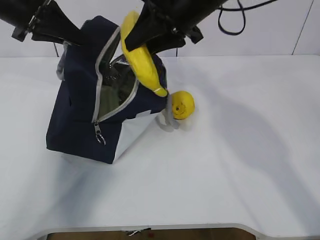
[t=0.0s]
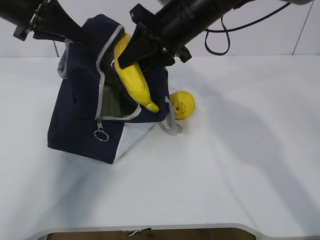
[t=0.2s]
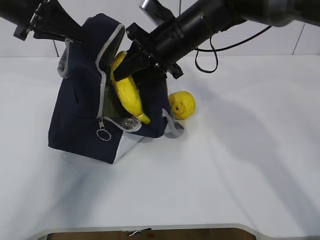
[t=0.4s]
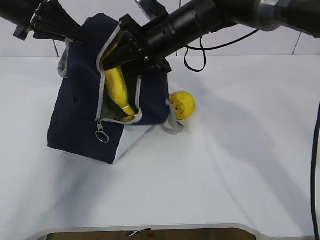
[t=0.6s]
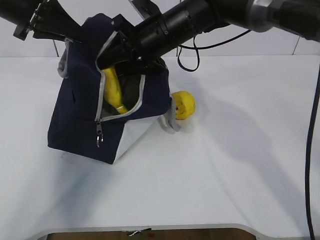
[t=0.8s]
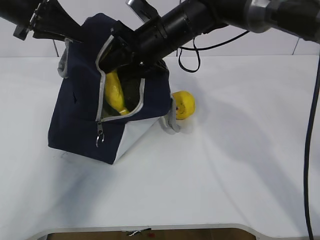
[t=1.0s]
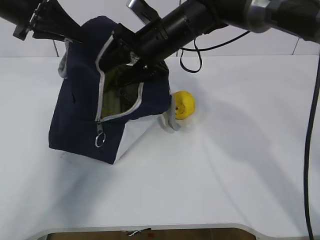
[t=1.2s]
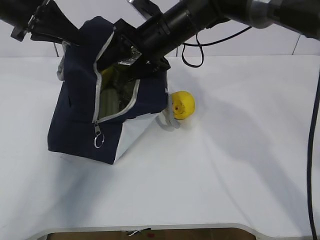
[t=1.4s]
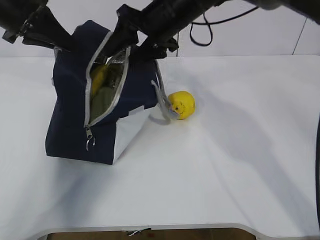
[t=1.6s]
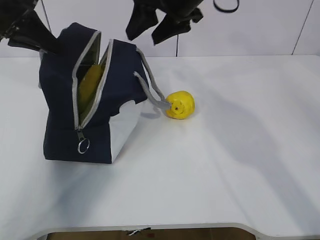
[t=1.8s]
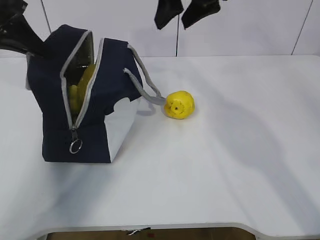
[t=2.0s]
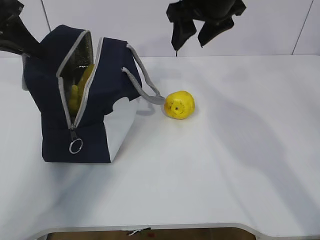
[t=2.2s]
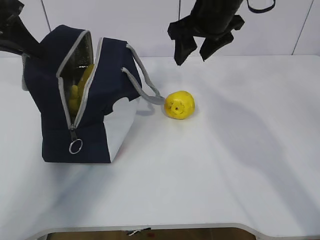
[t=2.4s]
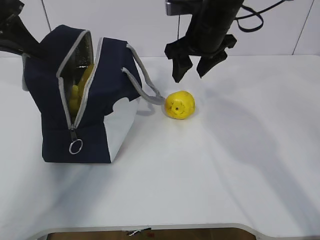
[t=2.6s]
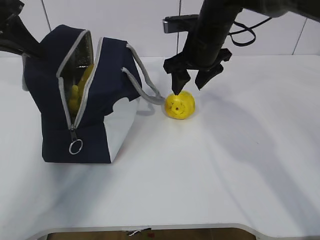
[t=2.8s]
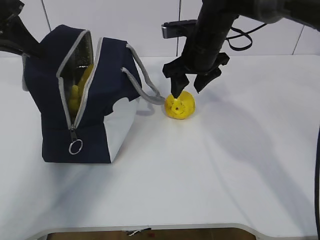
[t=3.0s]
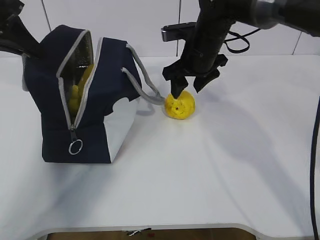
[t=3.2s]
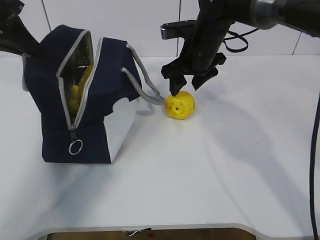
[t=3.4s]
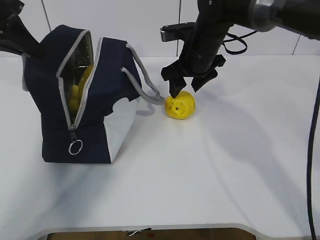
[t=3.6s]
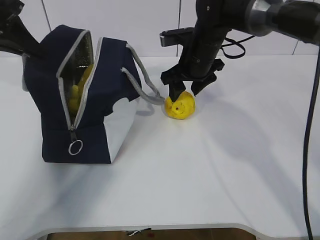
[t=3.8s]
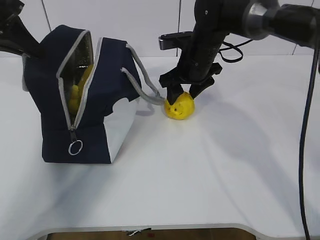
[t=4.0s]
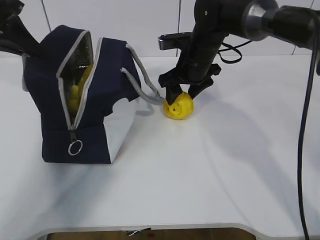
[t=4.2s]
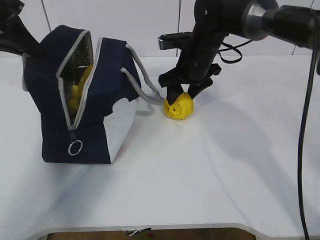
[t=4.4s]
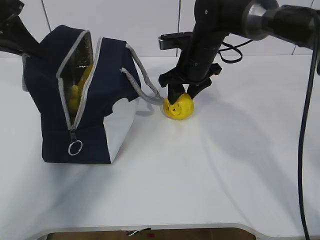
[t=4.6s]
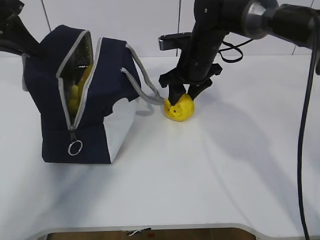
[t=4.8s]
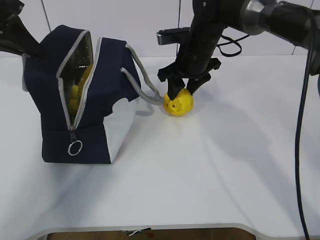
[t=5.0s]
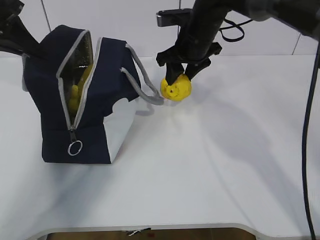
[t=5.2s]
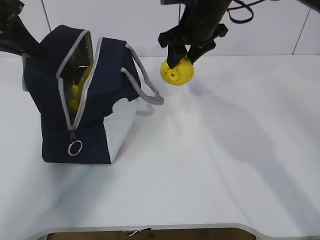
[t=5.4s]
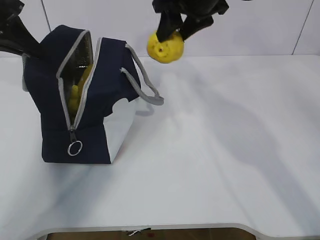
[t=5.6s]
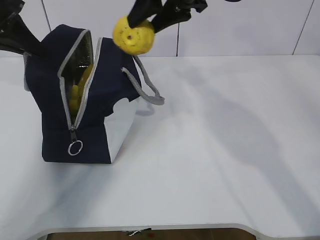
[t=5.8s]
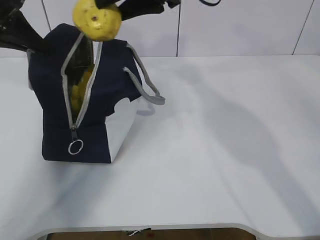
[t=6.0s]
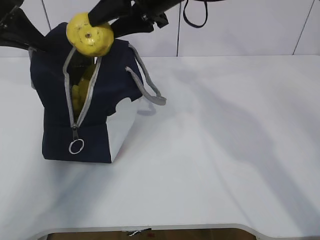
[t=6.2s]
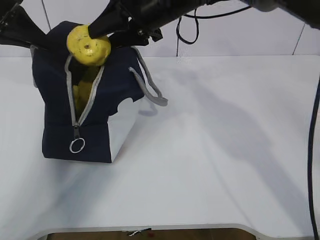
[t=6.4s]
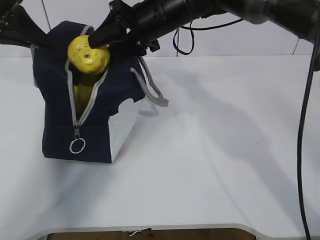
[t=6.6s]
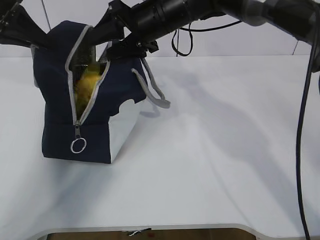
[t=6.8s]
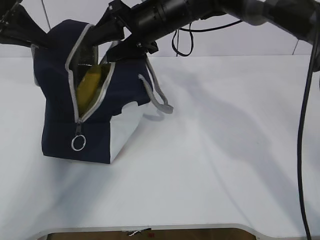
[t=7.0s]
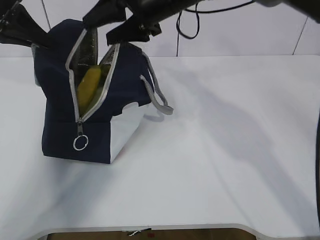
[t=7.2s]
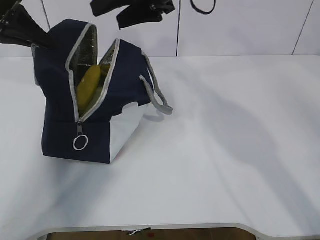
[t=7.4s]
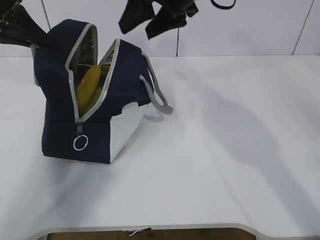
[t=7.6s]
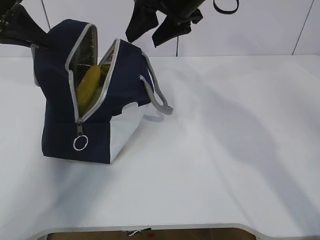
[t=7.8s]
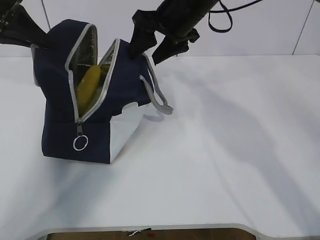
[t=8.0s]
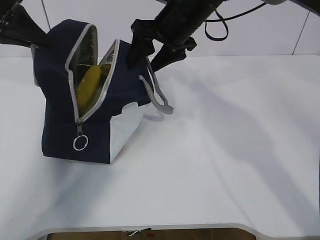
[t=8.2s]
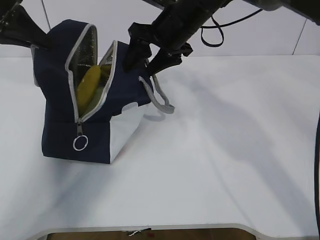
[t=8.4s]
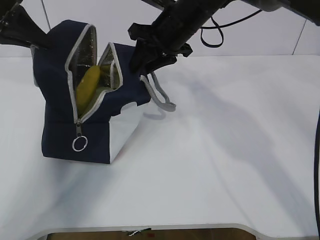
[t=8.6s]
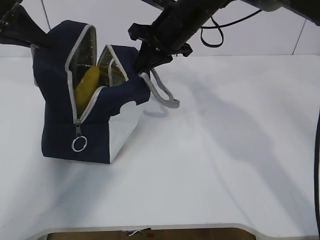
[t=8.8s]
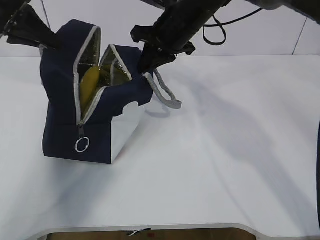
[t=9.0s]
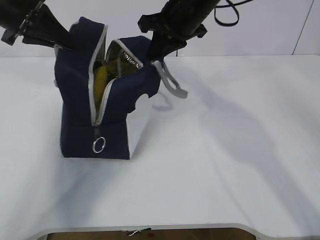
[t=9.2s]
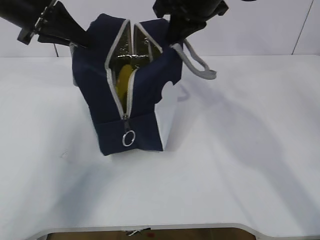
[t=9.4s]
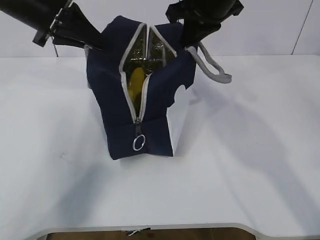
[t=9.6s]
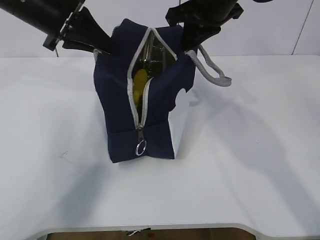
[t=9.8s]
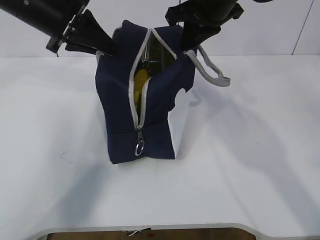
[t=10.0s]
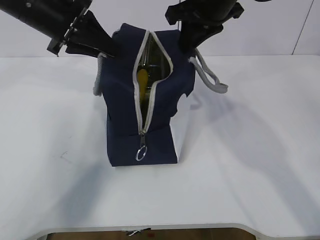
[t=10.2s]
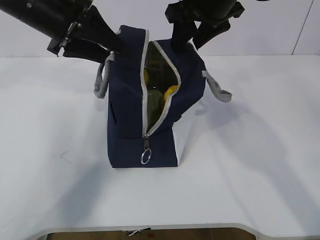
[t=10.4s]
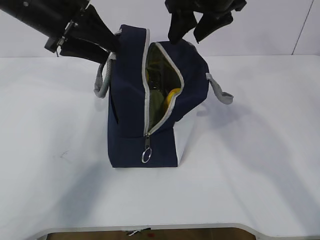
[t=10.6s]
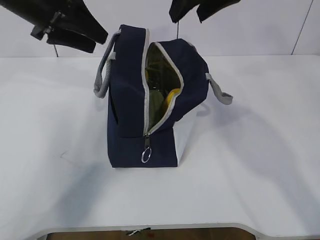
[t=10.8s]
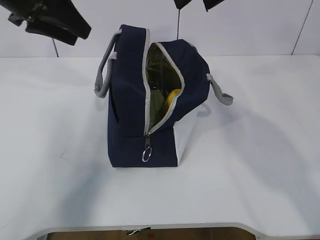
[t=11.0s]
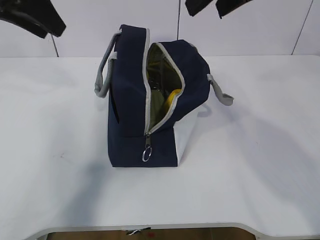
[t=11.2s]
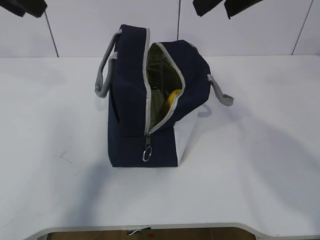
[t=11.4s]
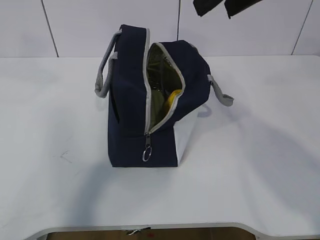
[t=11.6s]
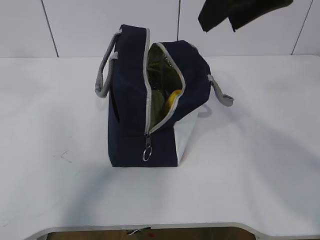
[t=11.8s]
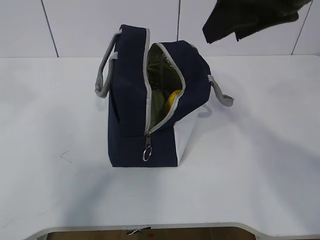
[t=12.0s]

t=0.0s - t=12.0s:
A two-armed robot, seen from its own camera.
Step, t=0.0s - t=1.8s: Place the banana into the package with the right gripper.
Step, t=2.2s - t=4.4s: Grasp the pear with the right gripper.
Step, t=4.6s - t=7.2s: Place the pear into the package with the right gripper.
t=0.0s - t=1.6s: The right gripper opens.
t=1.6s - t=3.0s: The right gripper goes about 10 cm downward and to the right.
t=3.0s - t=4.4s: The grippers stay close to where they were, moving slightly.
t=4.4s - t=6.0s: The right gripper shifts about 15 cm upward.
t=6.0s - t=7.6s: The right gripper moves approximately 10 cm downward and comes back.
t=7.6s - t=9.0s: The right gripper goes some 5 cm downward, and closes.
t=9.0s - t=10.4s: The left gripper goes approximately 10 cm to the right, and opens up. The right gripper heads upward, covering roughly 5 cm, and opens its fingers.
t=10.4s - t=12.0s: The left gripper is displaced backward, upward and to the left by approximately 25 cm. Meanwhile the right gripper travels backward by some 15 cm.

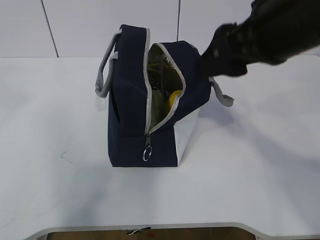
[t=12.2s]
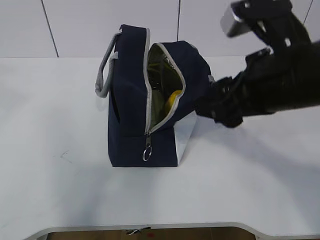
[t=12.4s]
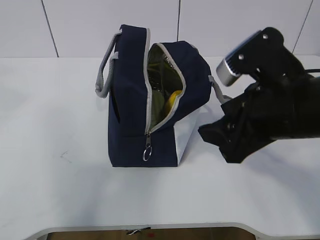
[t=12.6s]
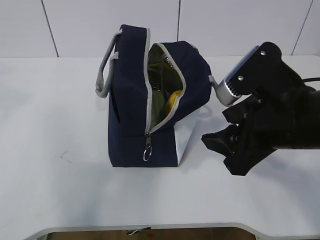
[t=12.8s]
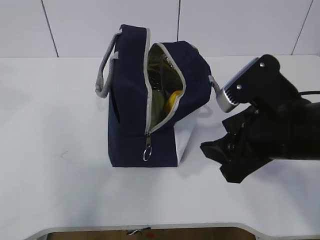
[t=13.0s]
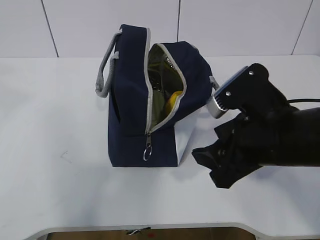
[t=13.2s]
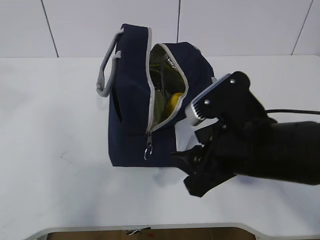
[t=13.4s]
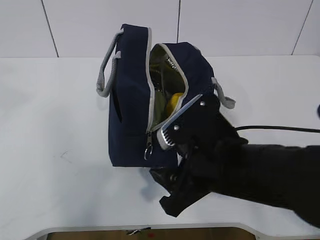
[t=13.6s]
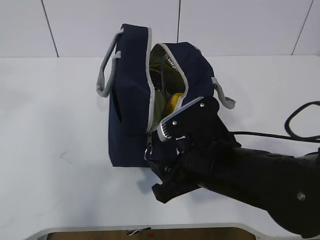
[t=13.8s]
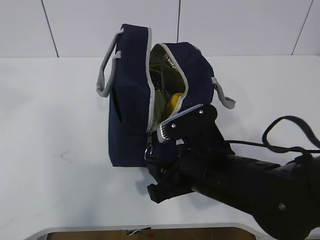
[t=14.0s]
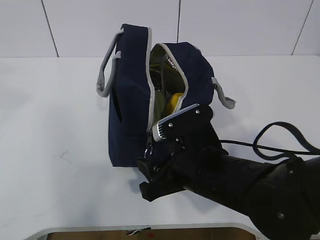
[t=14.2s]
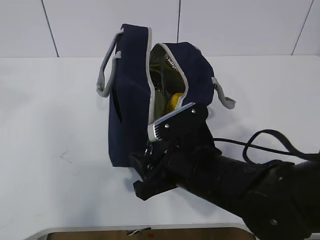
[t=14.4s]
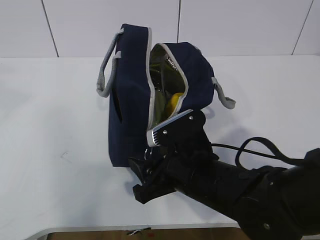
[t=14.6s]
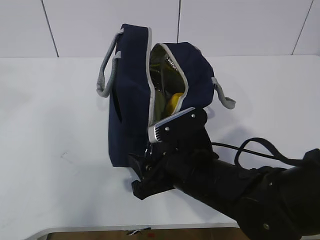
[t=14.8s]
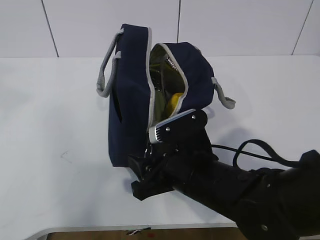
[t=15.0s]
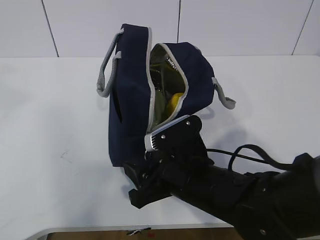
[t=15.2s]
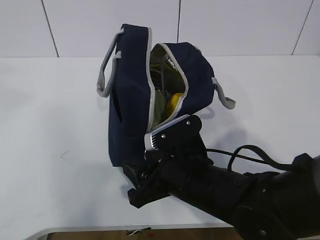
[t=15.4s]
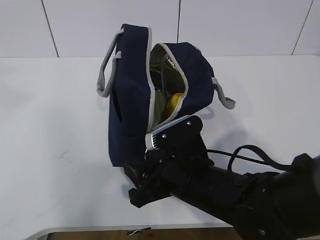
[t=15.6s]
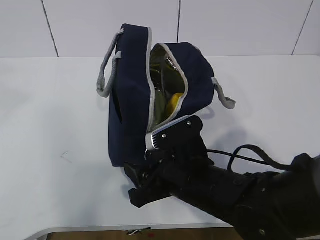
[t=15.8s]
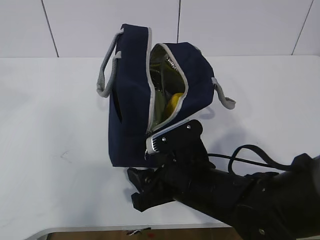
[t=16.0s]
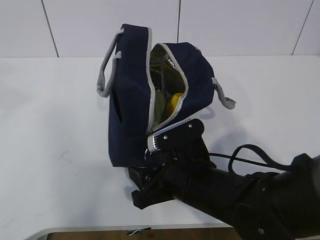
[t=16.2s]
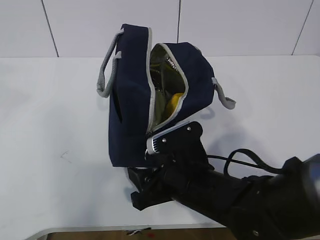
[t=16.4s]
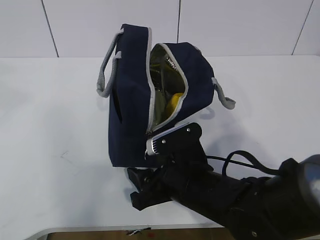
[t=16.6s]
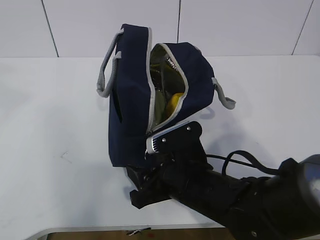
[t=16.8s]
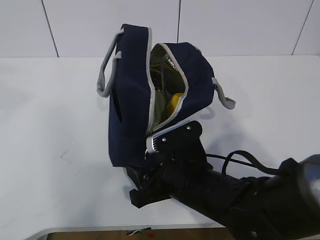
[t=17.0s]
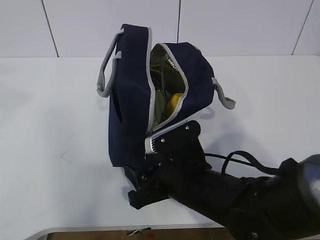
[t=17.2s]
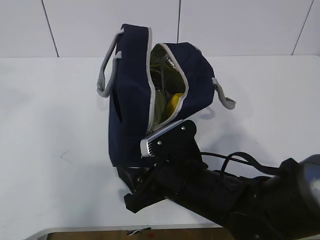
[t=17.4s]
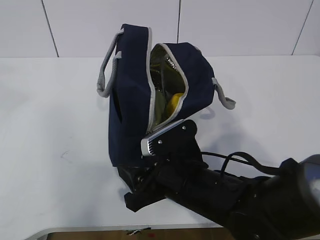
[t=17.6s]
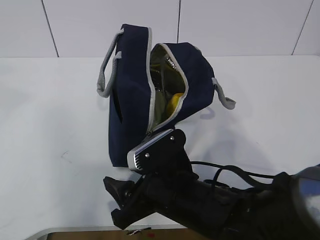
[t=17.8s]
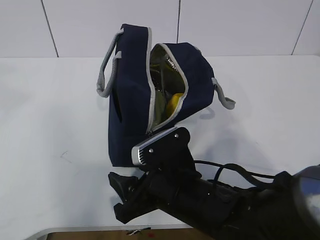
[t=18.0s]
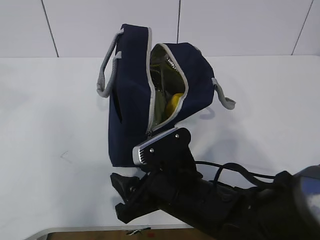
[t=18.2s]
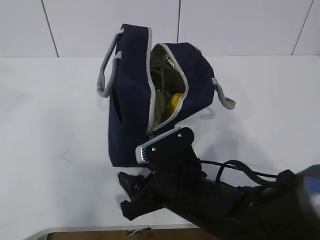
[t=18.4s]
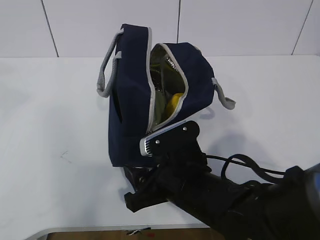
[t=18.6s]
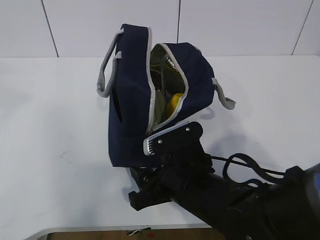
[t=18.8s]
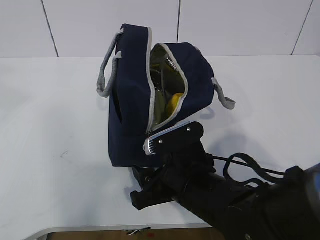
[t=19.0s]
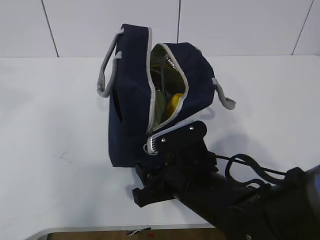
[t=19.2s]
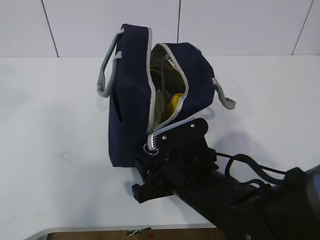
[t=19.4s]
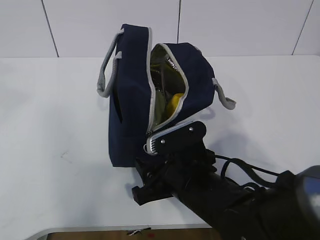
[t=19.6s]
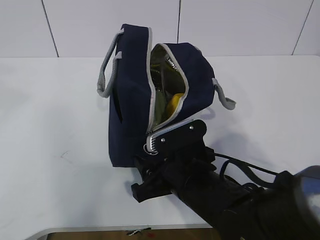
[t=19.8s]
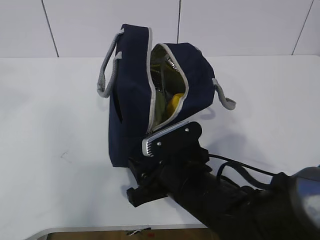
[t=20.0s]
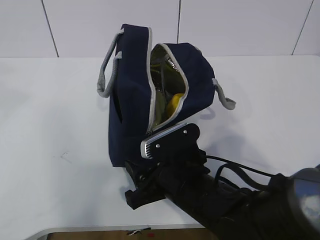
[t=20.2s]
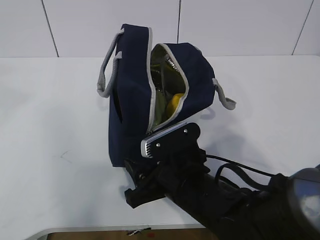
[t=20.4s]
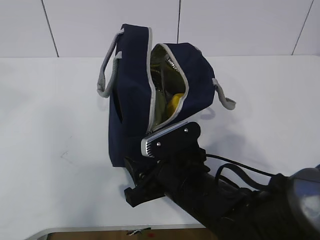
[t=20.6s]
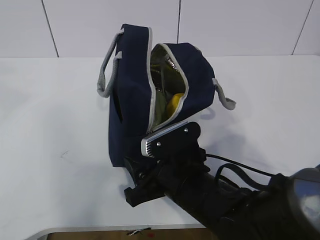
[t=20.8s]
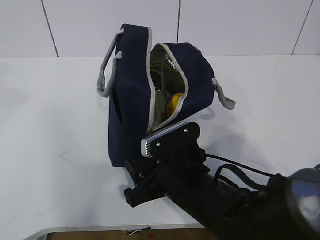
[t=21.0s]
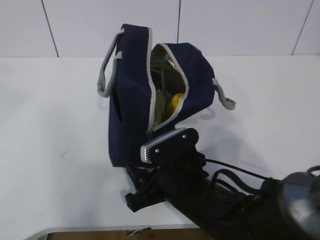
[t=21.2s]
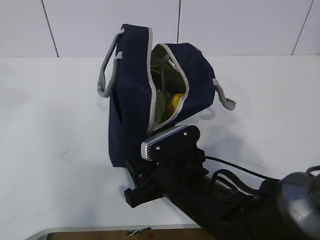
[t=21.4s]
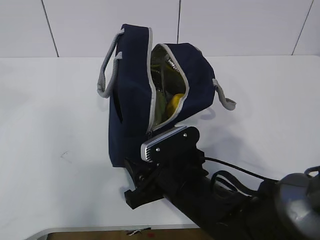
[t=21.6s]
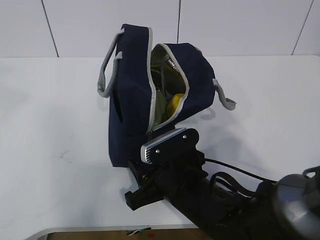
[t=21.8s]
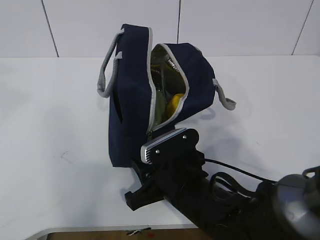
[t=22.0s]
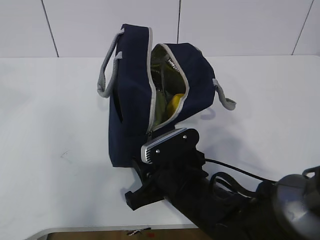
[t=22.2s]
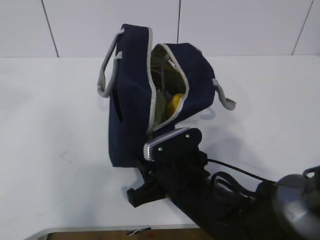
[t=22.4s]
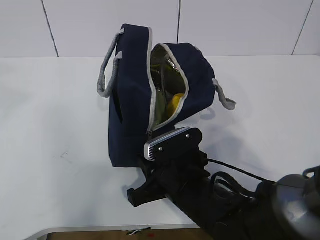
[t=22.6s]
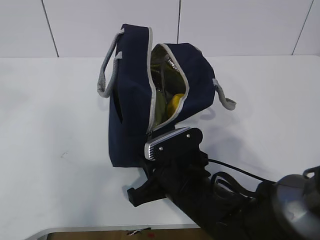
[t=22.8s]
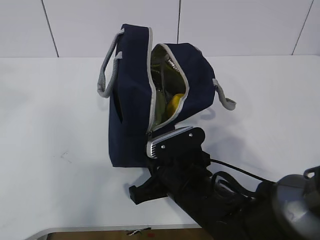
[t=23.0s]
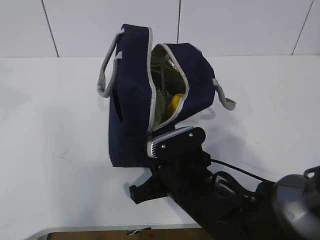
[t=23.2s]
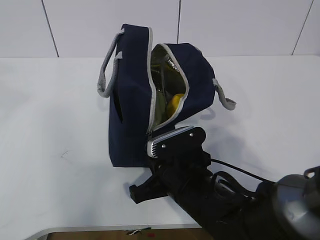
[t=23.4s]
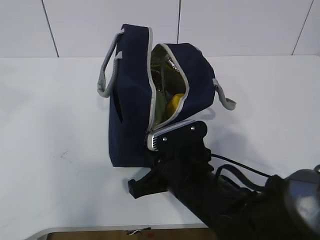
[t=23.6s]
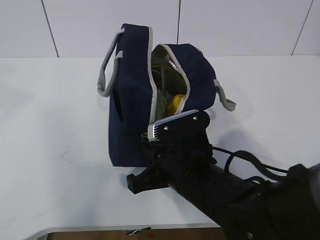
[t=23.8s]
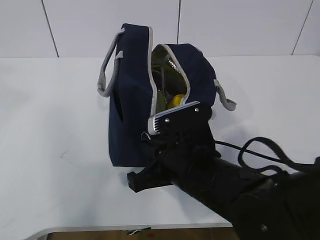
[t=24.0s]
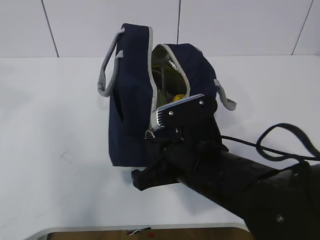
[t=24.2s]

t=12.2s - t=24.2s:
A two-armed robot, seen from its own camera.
t=12.2s - t=13.8s: The right gripper travels downward by some 15 cm.
t=13.8s - t=15.2s: The right gripper ends up some 5 cm from where it was.
t=15.2s - t=21.2s: The grippers make only small movements.
t=21.2s - t=22.6s: The right gripper closes its fingers.
t=22.6s - t=24.2s: The right gripper travels upward by some 5 cm, and closes up.
